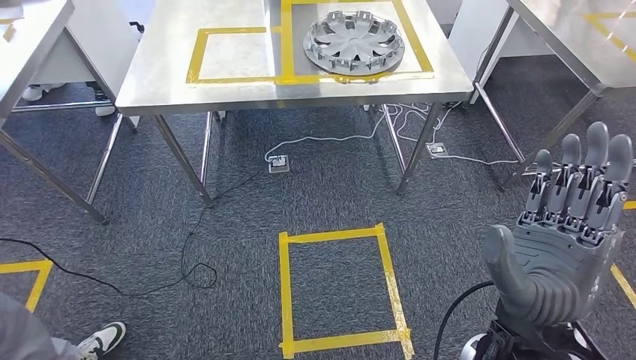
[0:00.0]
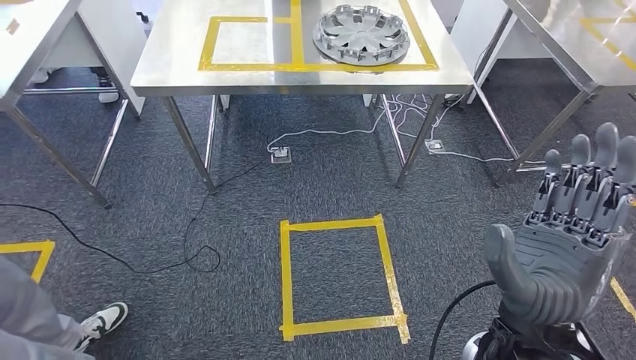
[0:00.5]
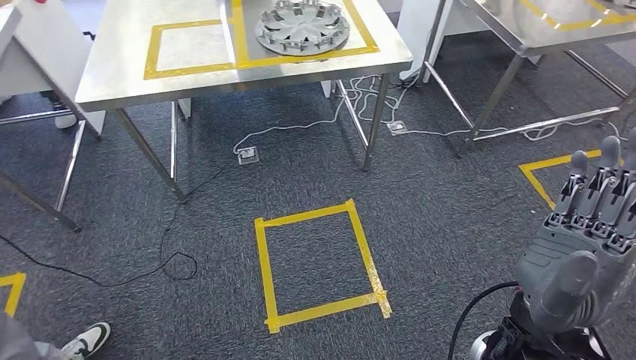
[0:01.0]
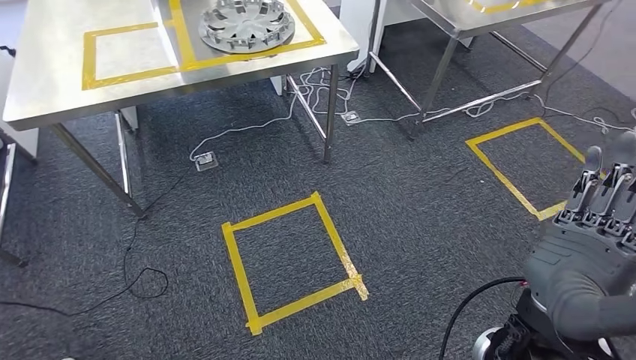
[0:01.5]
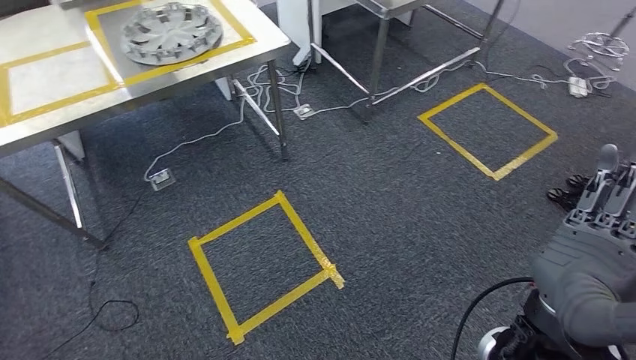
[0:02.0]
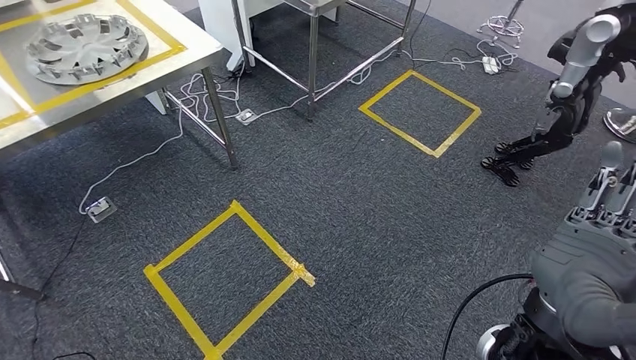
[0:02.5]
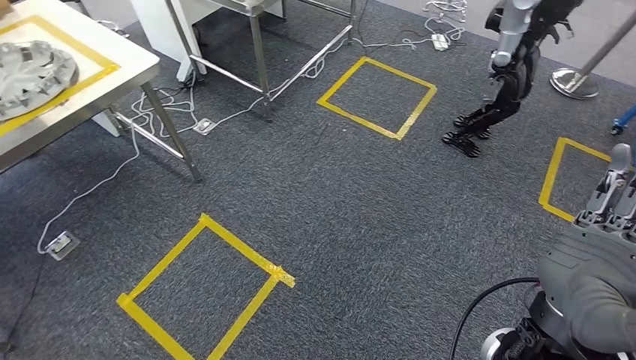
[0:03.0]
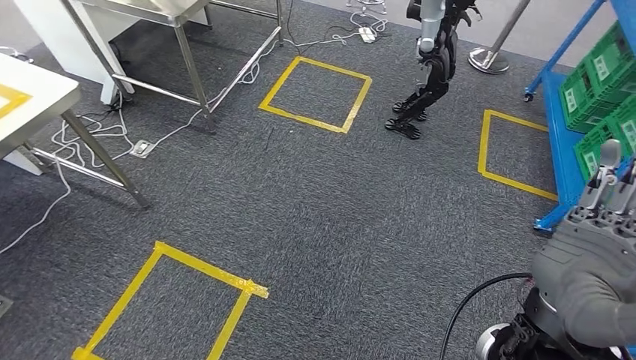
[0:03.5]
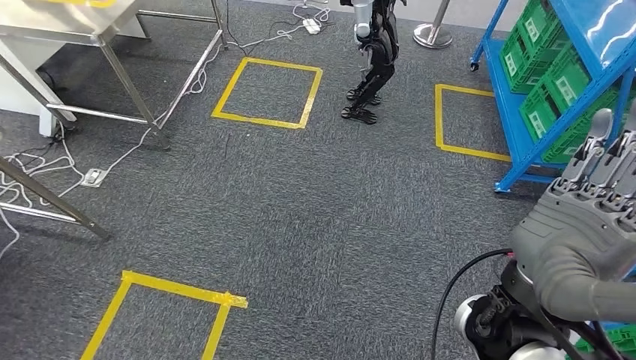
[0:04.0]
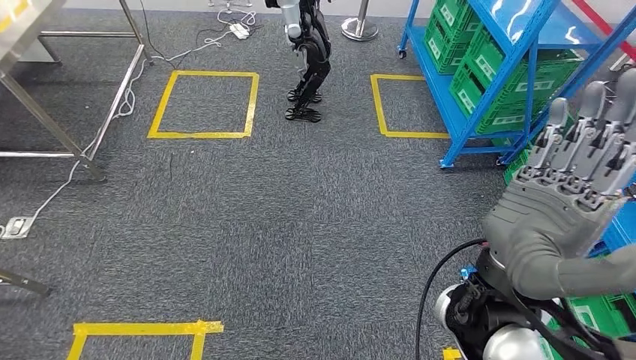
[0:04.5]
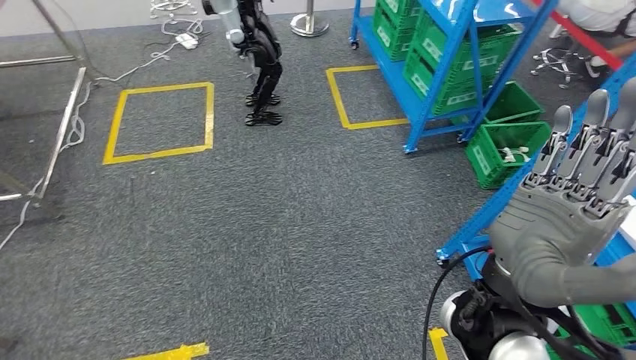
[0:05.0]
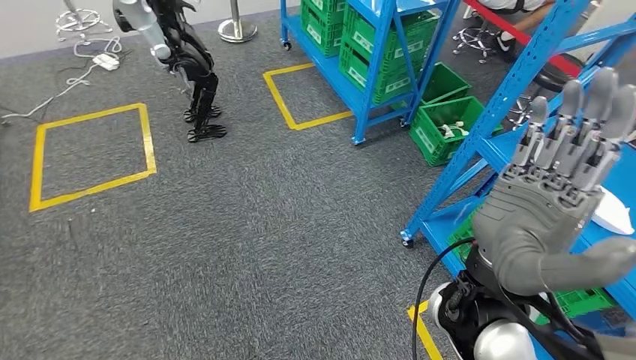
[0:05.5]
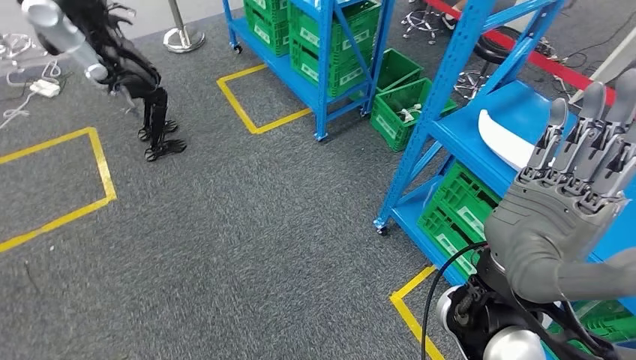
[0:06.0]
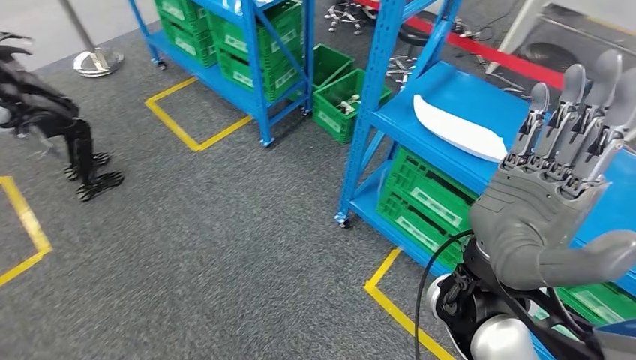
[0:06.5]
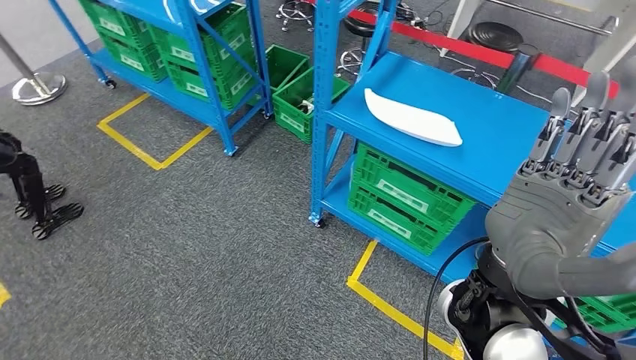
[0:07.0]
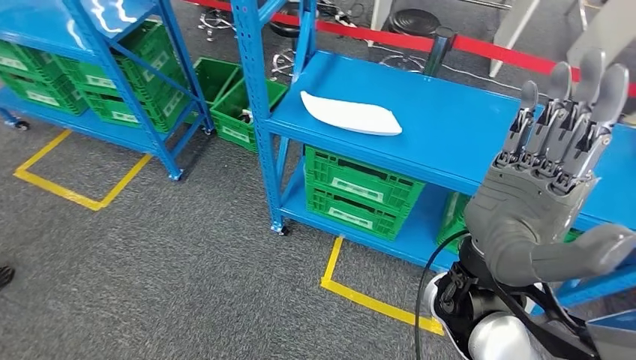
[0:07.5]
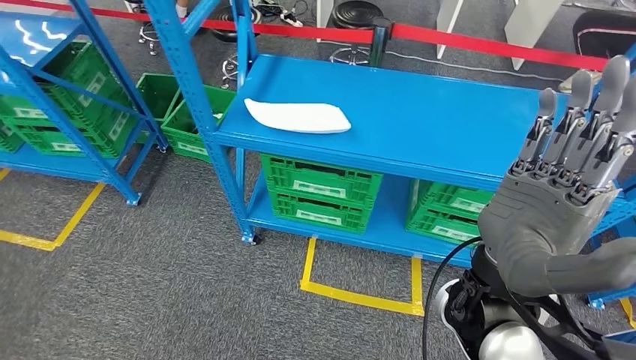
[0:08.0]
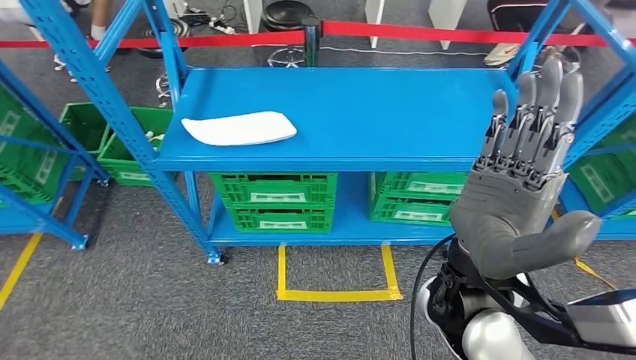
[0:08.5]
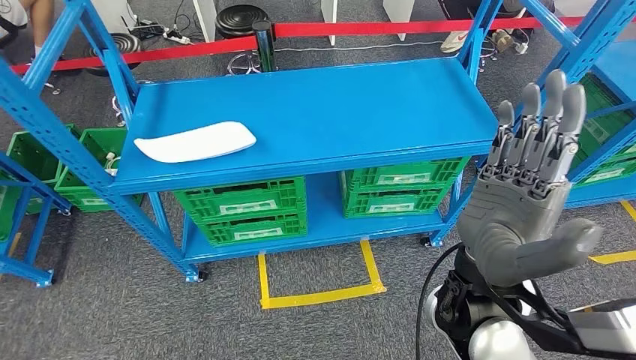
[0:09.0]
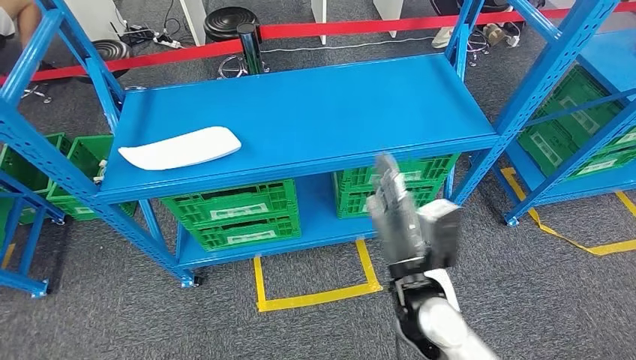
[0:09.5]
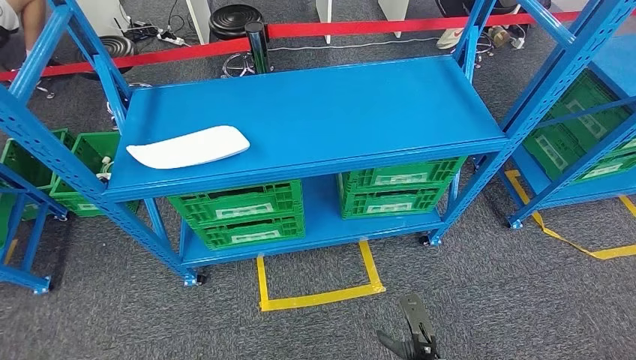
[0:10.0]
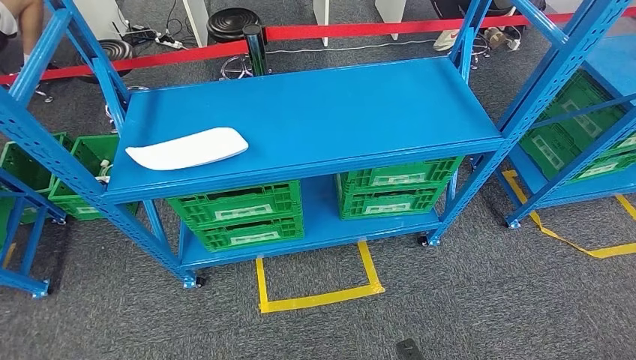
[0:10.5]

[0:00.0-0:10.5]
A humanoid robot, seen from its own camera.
Step, 0:00.0 to 0:10.5: Return to the initial position at the workbench.
